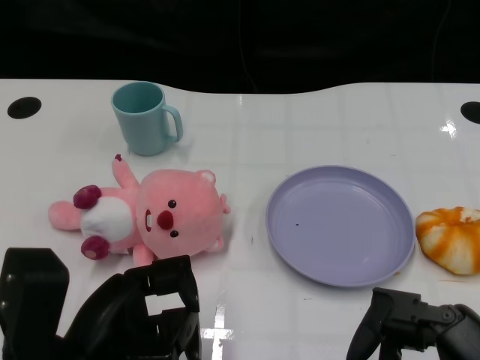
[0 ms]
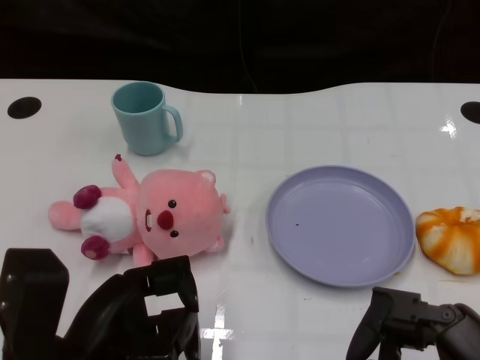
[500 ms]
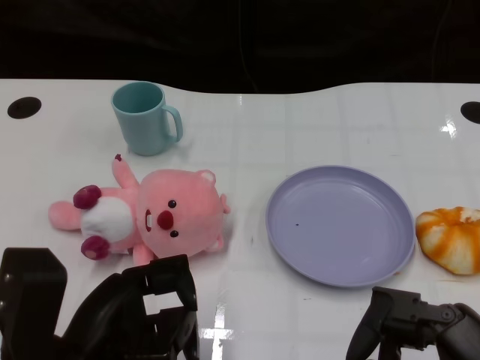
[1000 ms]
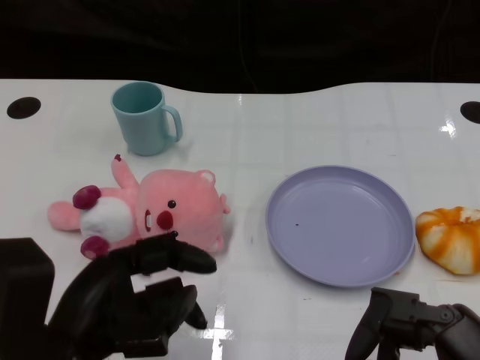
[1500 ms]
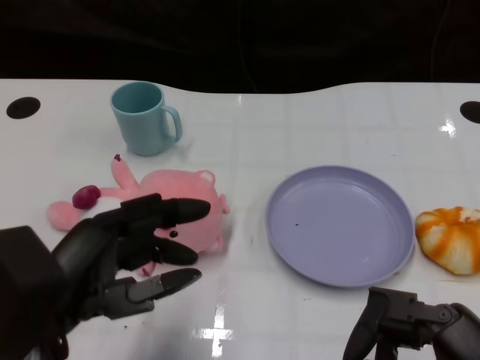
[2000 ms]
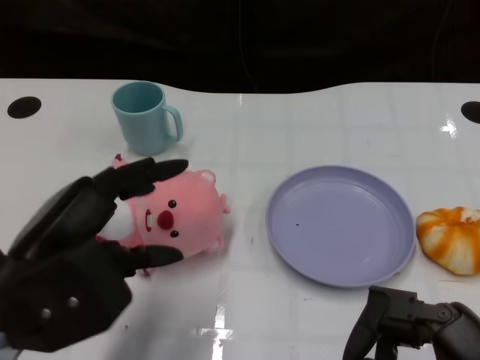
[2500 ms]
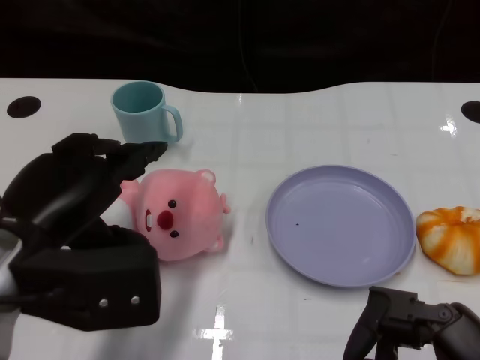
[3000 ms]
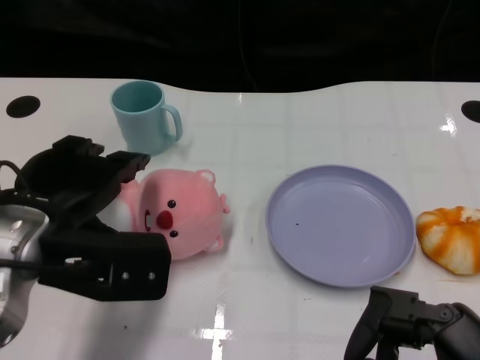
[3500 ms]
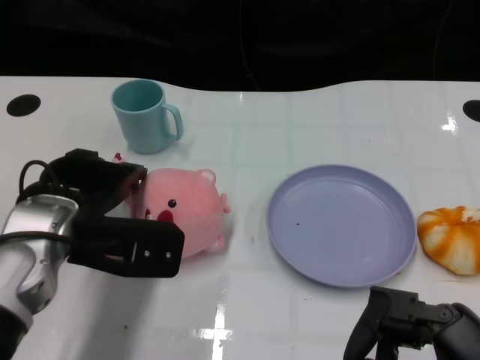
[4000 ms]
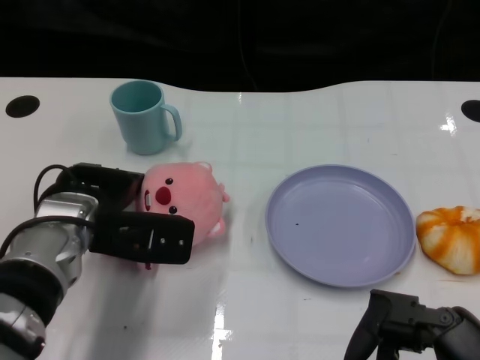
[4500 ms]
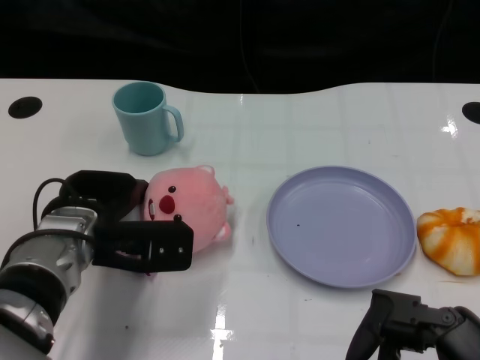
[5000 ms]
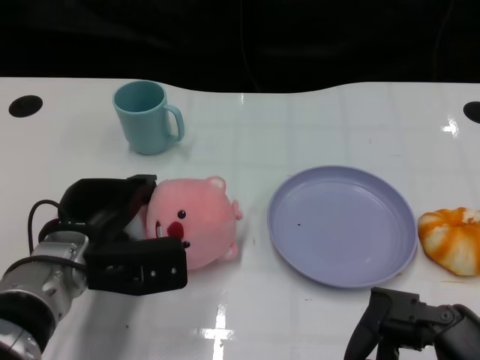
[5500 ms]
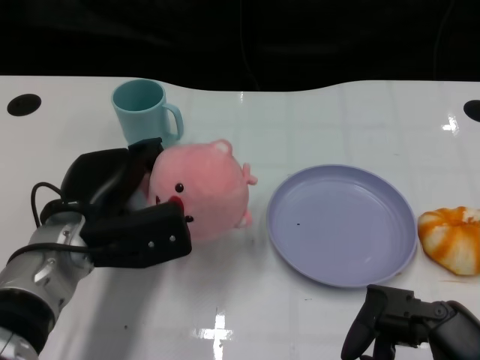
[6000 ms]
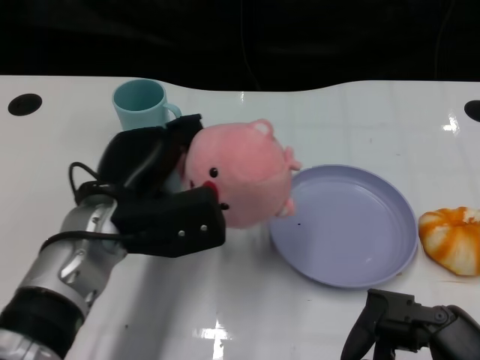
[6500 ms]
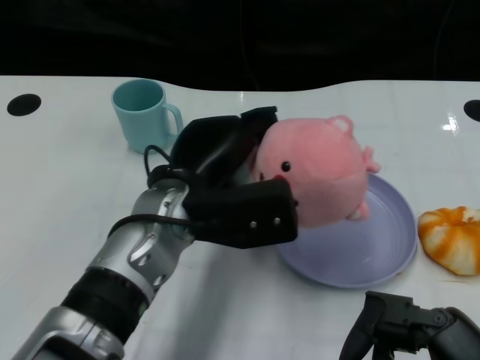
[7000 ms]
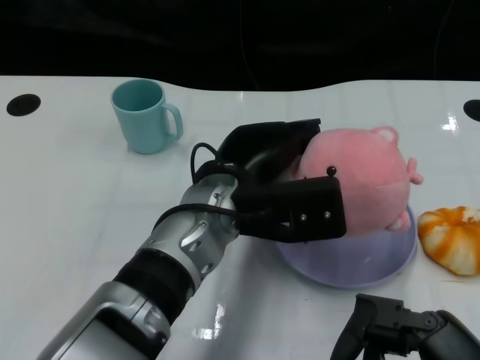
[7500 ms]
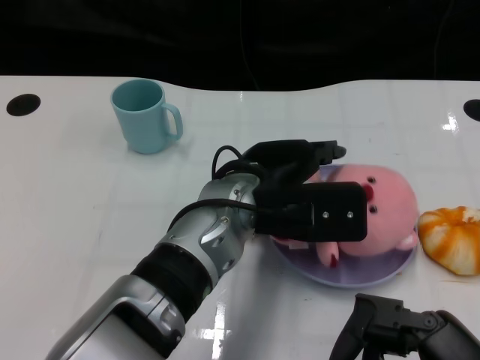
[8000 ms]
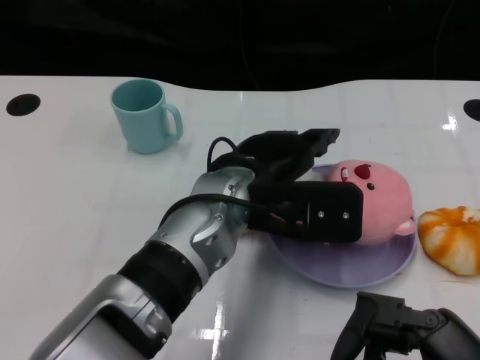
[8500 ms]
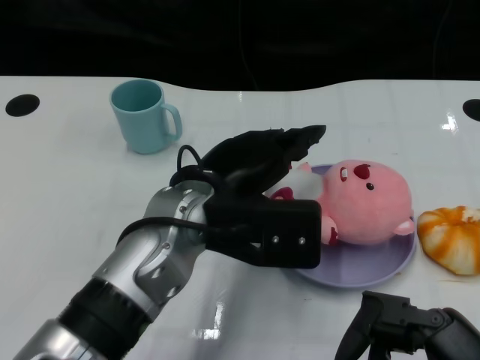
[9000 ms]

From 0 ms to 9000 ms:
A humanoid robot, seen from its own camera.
Task of the whole recording: Pick up the doll on one side of the plate and place it into the plate.
Step, from 1500 ms to 5500 ms: Grasp the pink doll with the left gripper.
Step, from 6000 ms to 8000 ms: Place the pink doll into the plate with the left gripper.
From 2000 ms to 4500 ms: The left hand is displaced forward by approximately 15 cm.
From 4500 ms to 7000 ms: The left hand goes approximately 10 cm to the right.

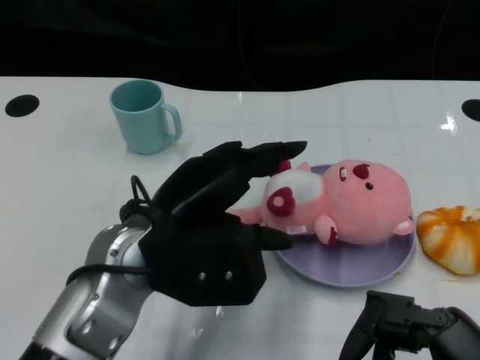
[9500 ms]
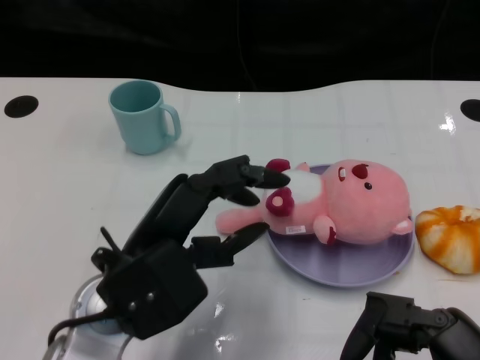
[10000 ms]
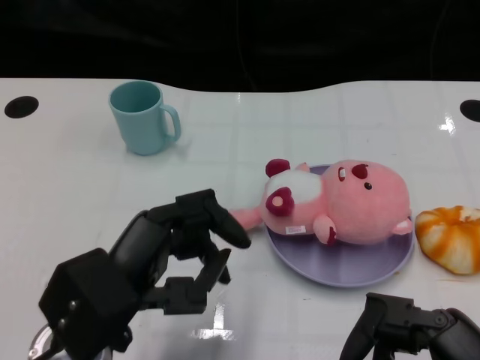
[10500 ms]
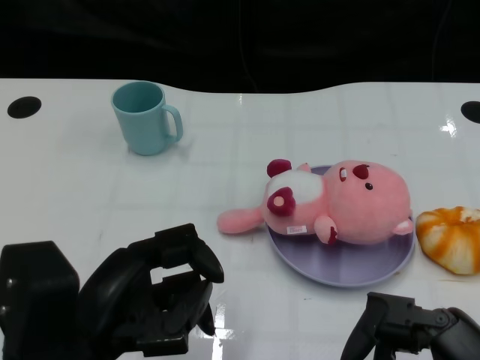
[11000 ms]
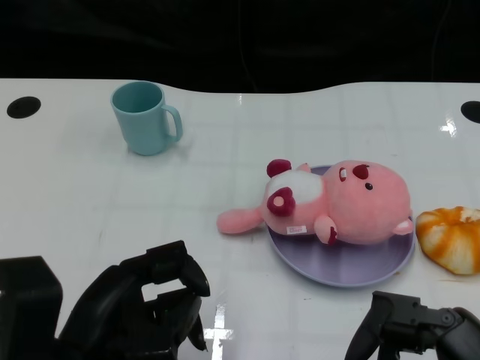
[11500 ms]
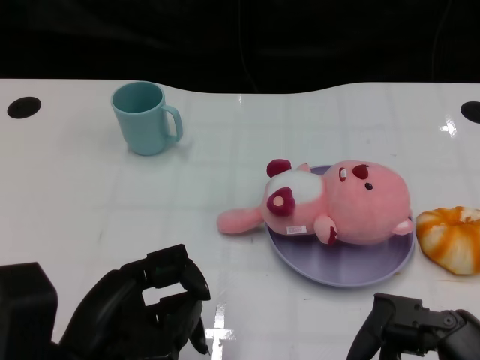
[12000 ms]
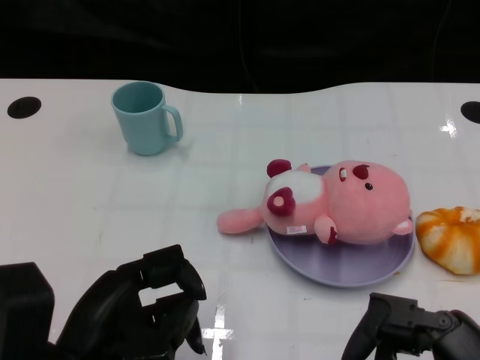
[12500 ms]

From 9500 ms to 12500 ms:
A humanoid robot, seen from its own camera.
Task of the whole recording: Pick up the doll on one side of the plate and place it into the plate.
From 9500 ms to 11000 ms: The left hand travels backward and to the left by roughly 10 cm.
From 11000 ms to 12500 ms: The hands stay close to where they were, moving slightly.

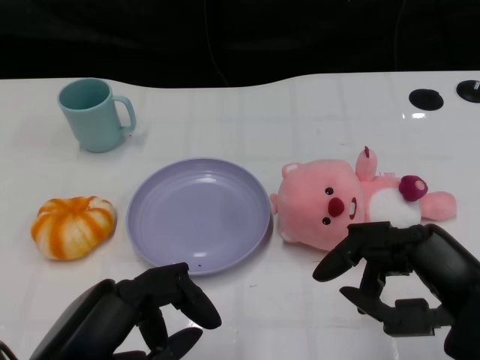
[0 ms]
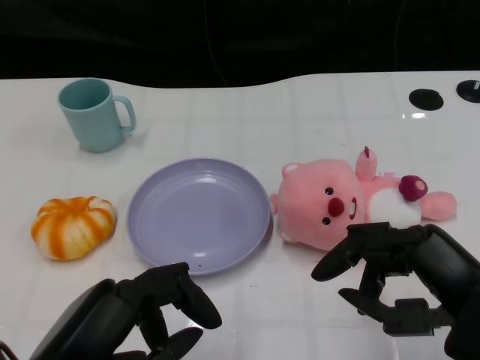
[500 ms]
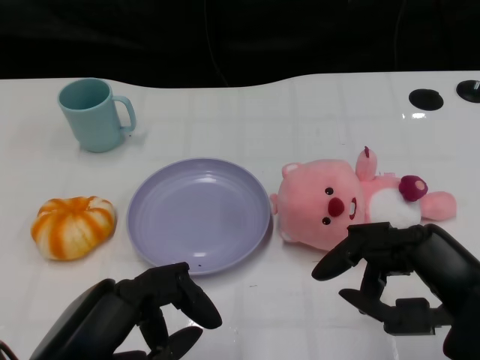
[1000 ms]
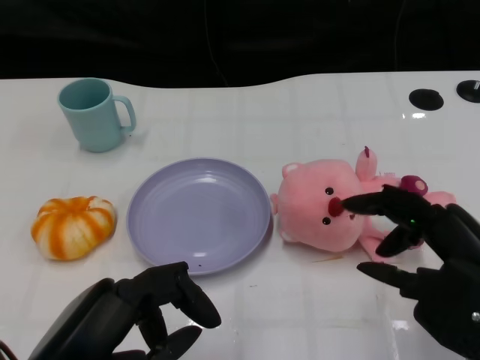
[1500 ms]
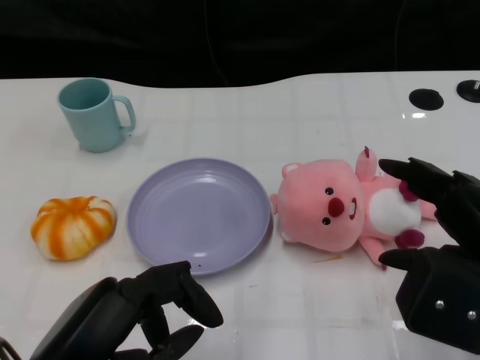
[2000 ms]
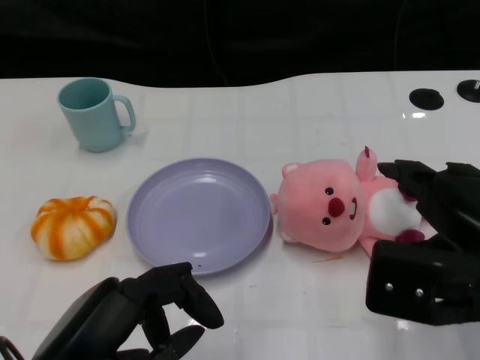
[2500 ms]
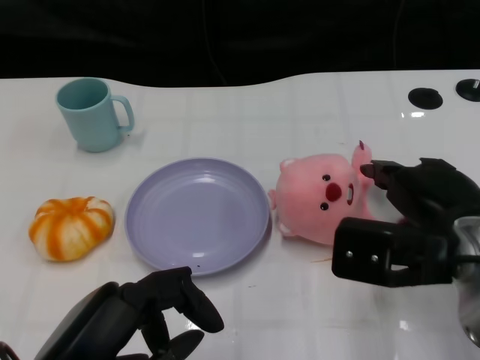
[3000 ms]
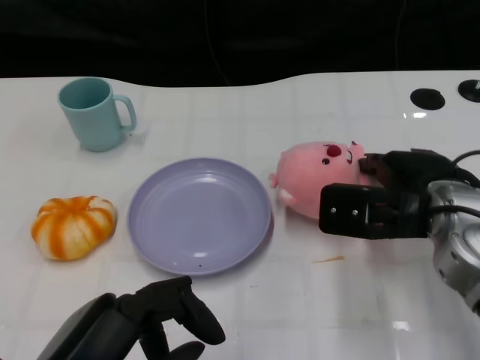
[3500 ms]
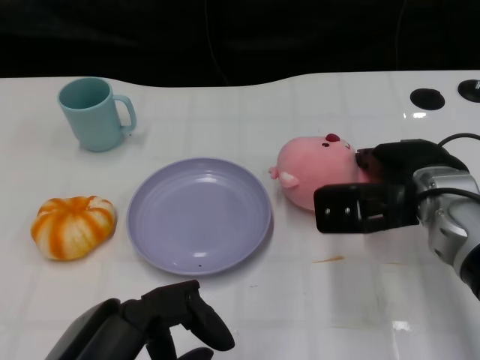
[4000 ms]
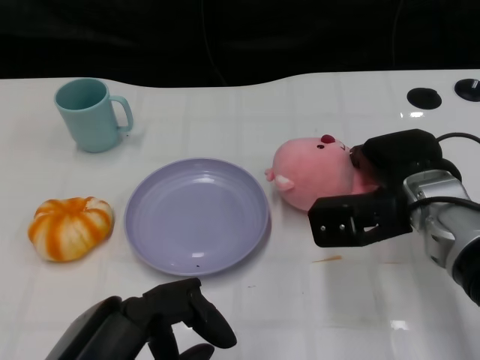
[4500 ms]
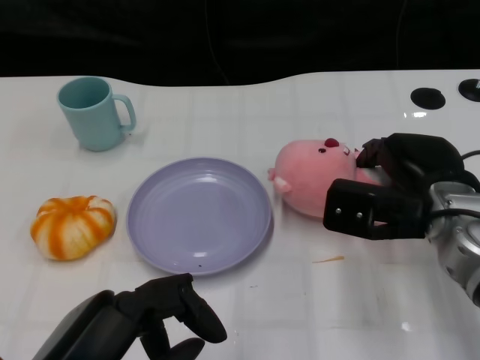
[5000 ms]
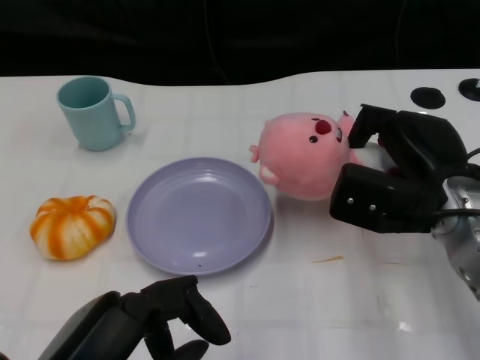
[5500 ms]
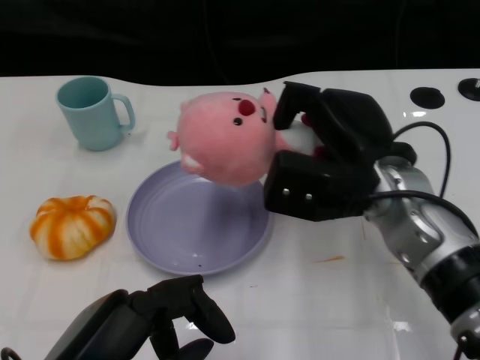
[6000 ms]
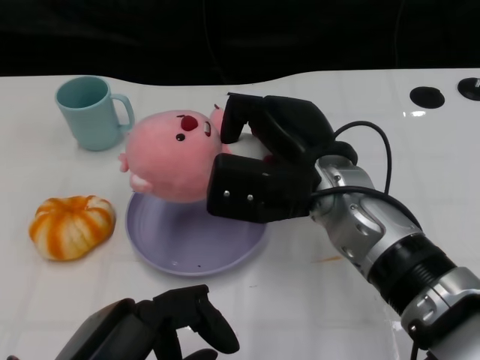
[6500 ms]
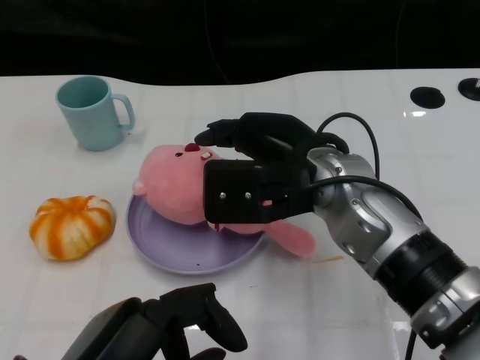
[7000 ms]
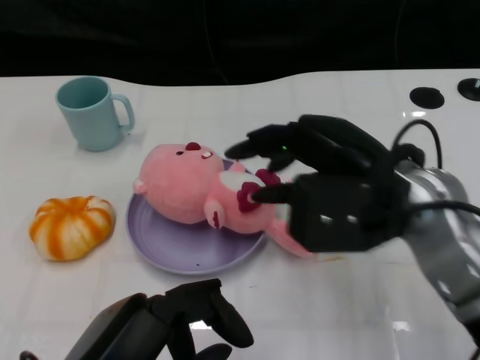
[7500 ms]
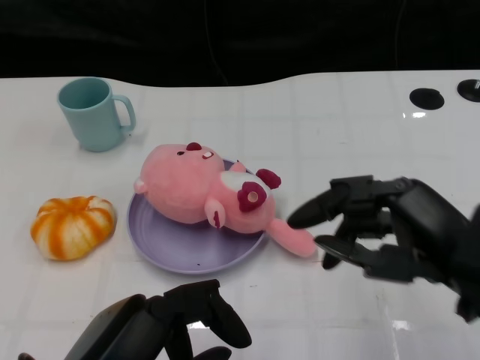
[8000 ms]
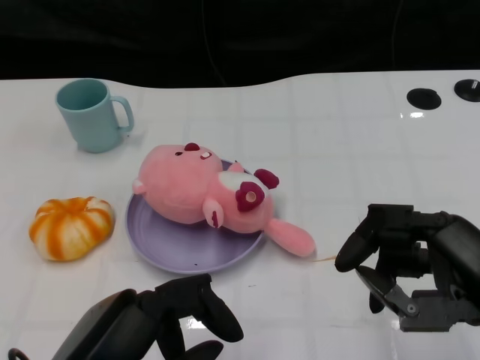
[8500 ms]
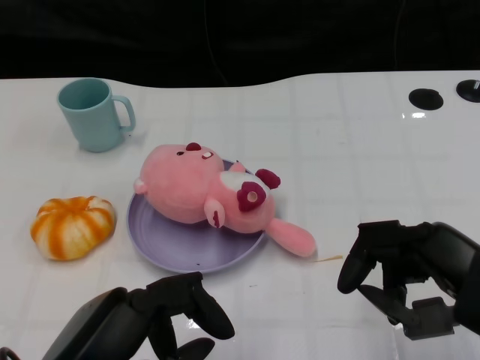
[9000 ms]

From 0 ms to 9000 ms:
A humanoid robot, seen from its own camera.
Task of the whole recording: Pick up the doll on the other side of the plate and place it into the plate.
Step, from 1000 ms to 5500 ms: Grasp the pink doll with the right gripper.
Step, from 6000 ms to 7000 ms: Place the pink doll into the plate with the right gripper.
From 2000 ms to 4500 ms: The right hand shifts roughly 15 cm forward, downward and to the left.
From 4500 ms to 7000 ms: The right hand goes approximately 10 cm to the left and upward.
From 7000 ms to 9000 ms: The right hand is displaced to the right and backward by about 20 cm.

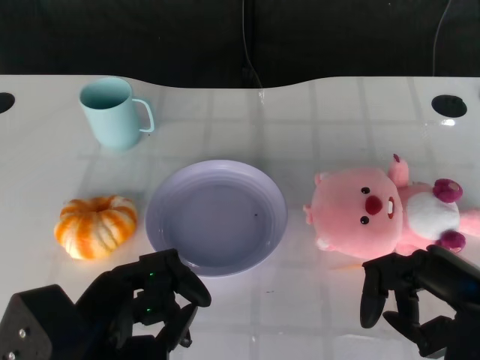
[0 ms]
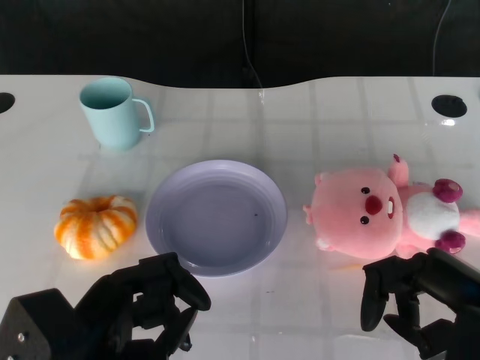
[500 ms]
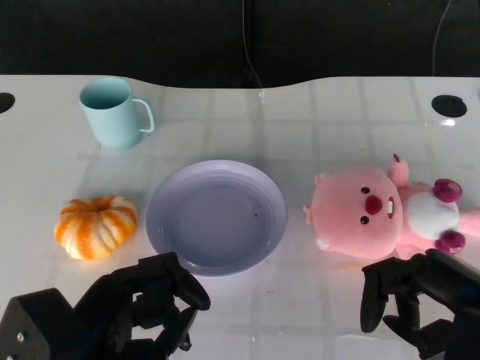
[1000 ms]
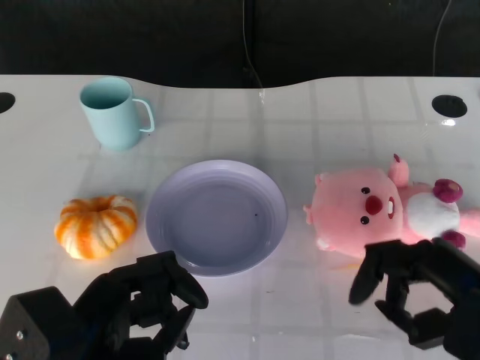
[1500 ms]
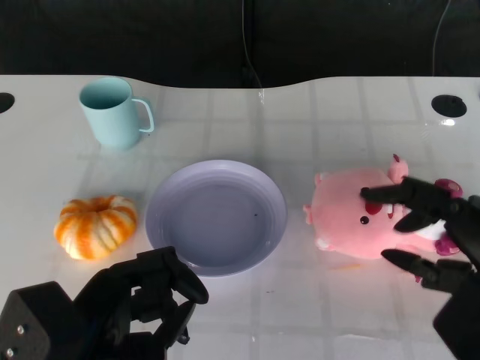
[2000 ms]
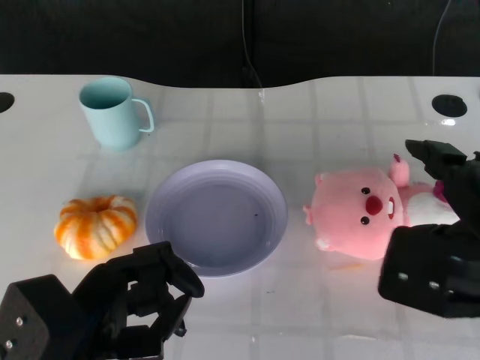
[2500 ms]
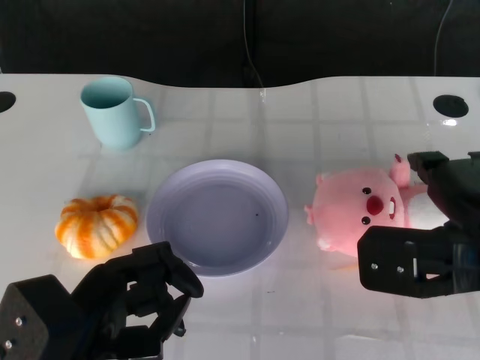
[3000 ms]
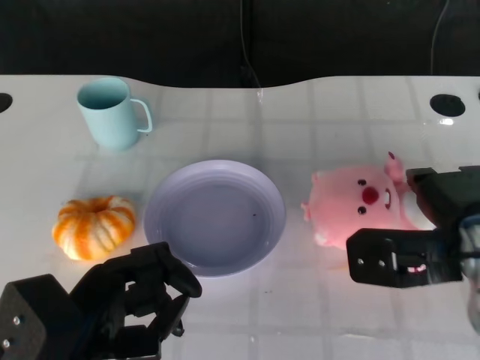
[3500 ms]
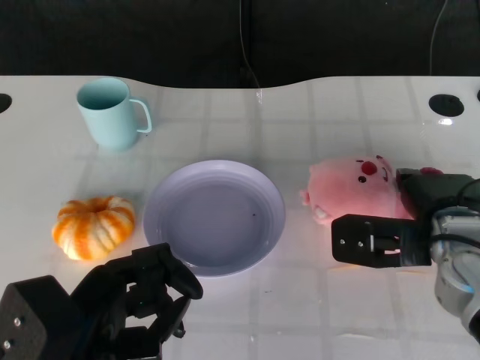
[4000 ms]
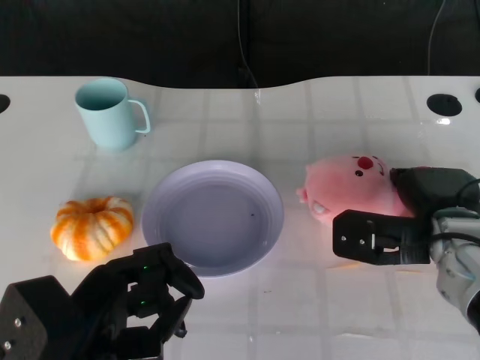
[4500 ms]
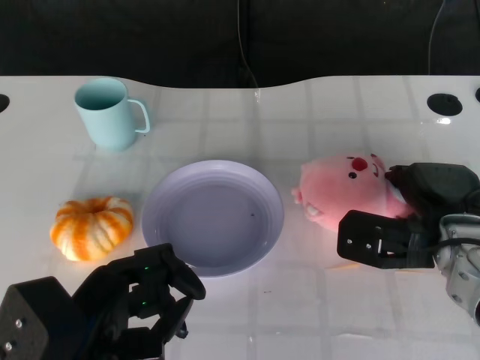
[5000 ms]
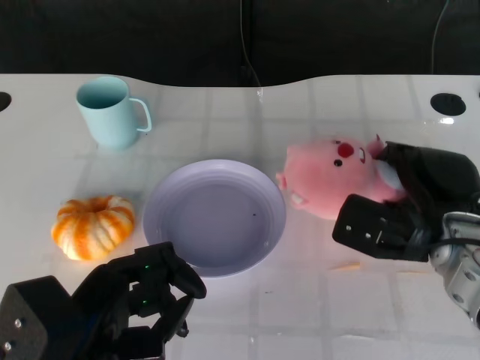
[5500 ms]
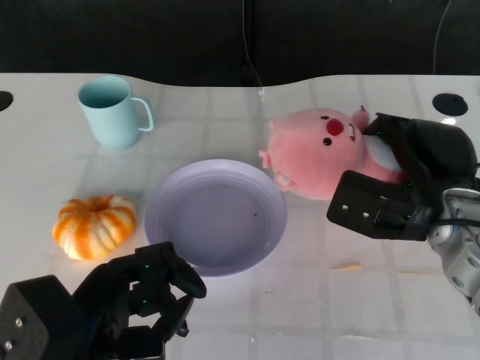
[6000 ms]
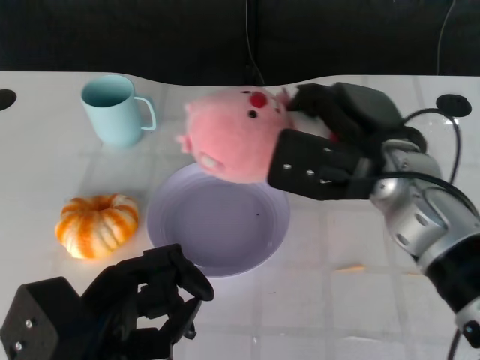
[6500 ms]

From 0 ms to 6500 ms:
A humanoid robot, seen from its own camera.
Task of the whole recording: Pick up the doll on the other side of the plate and place it into the plate.
Step, from 1500 ms to 5000 ms: Grasp the pink doll with the right gripper.
From 2000 ms to 4500 ms: The right hand is displaced forward, downward and to the left by roughly 15 cm.
From 4500 ms to 6500 ms: The right hand shifts approximately 10 cm upward and to the left.
